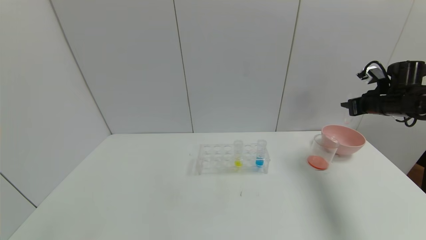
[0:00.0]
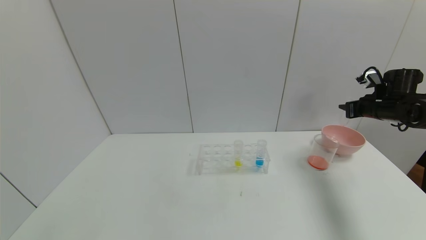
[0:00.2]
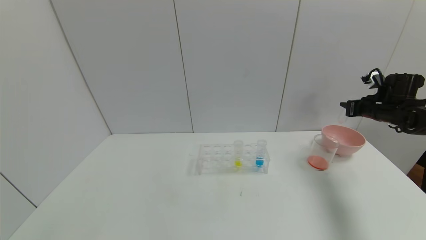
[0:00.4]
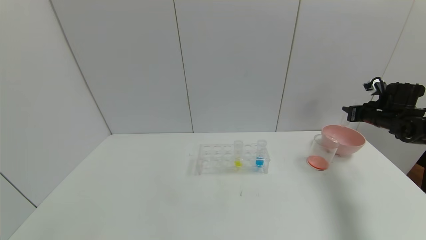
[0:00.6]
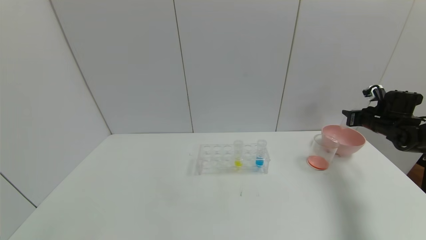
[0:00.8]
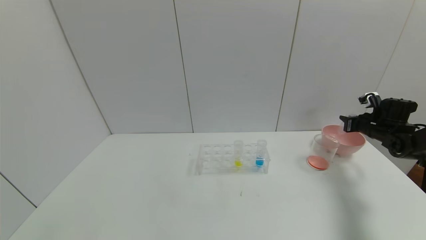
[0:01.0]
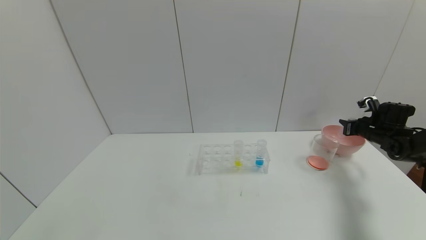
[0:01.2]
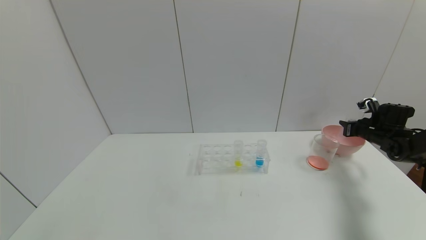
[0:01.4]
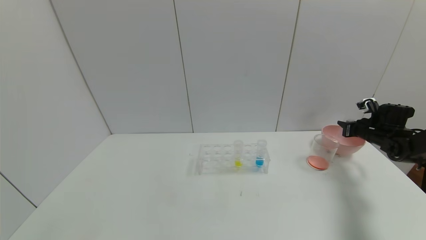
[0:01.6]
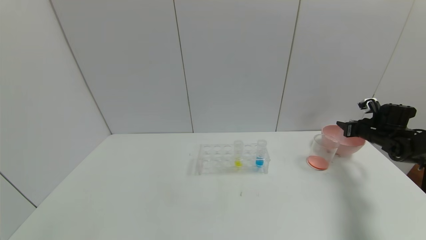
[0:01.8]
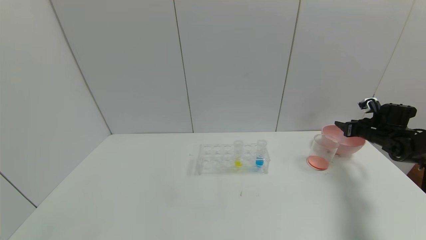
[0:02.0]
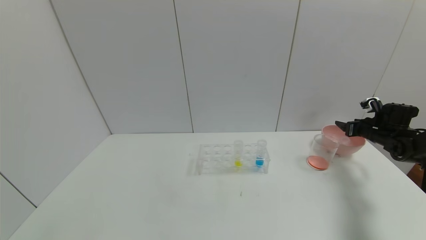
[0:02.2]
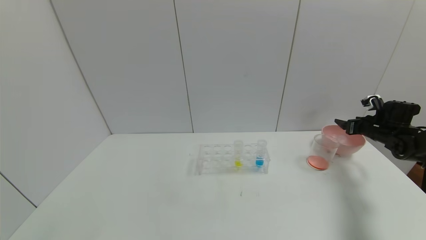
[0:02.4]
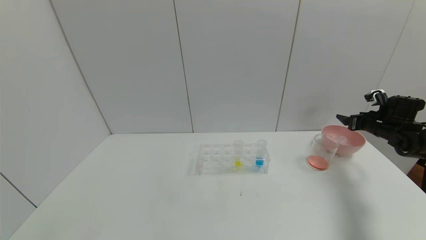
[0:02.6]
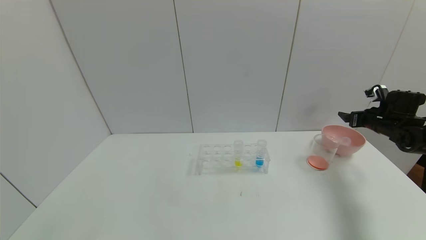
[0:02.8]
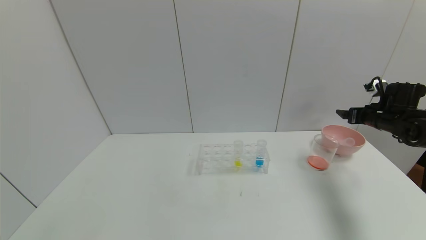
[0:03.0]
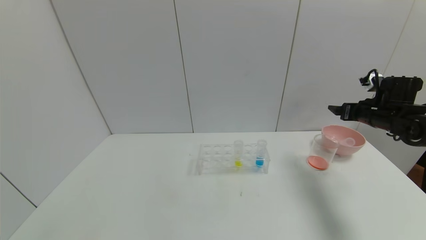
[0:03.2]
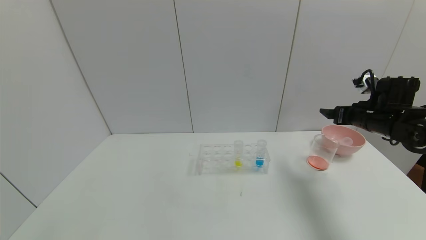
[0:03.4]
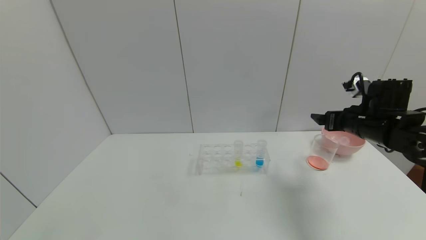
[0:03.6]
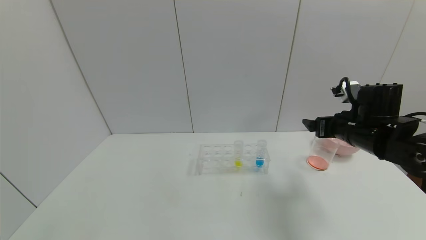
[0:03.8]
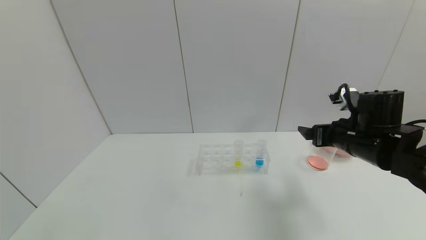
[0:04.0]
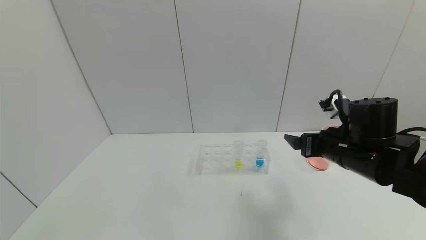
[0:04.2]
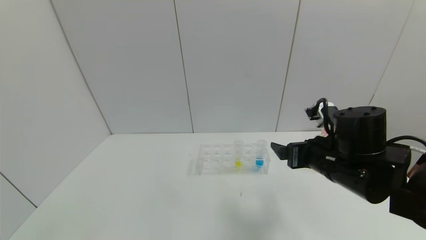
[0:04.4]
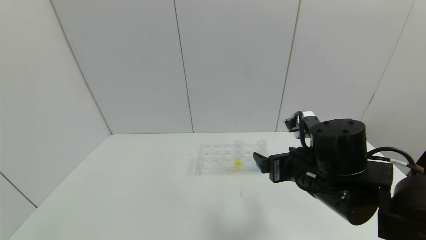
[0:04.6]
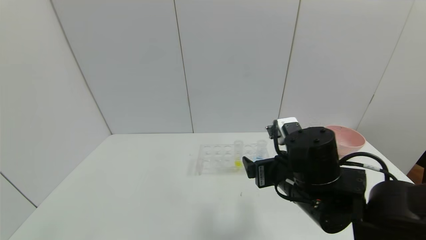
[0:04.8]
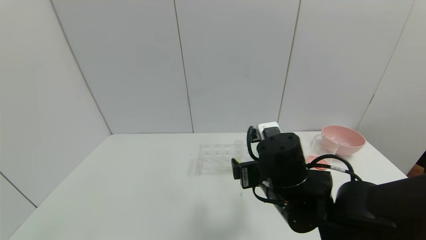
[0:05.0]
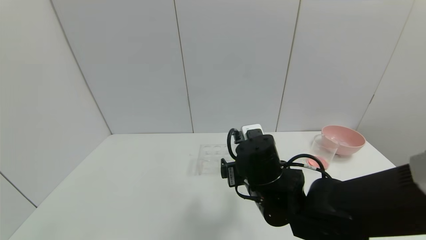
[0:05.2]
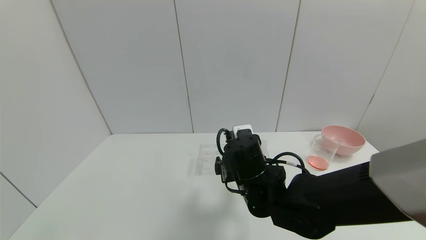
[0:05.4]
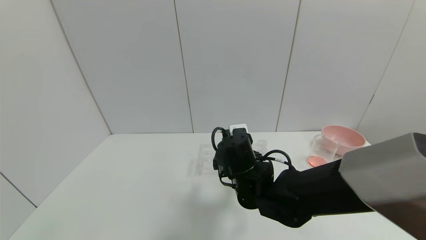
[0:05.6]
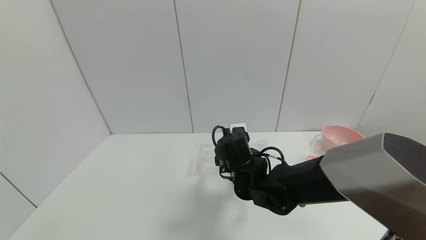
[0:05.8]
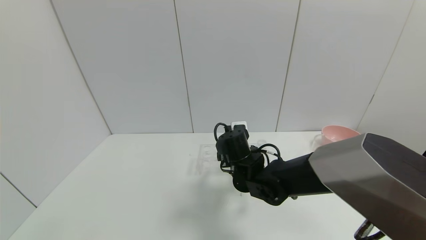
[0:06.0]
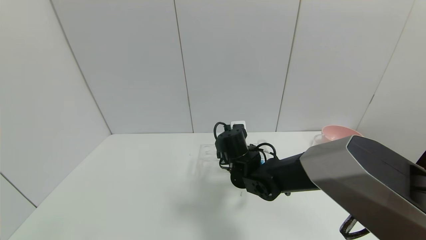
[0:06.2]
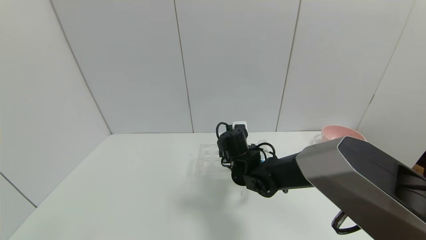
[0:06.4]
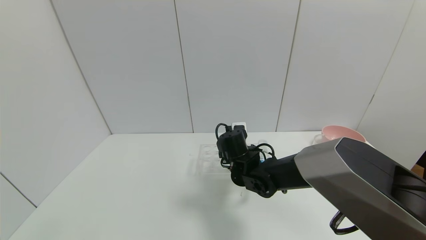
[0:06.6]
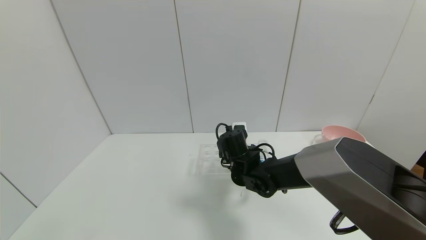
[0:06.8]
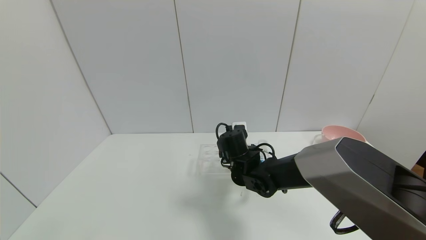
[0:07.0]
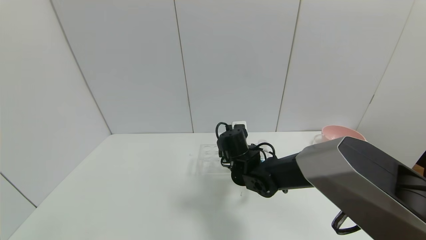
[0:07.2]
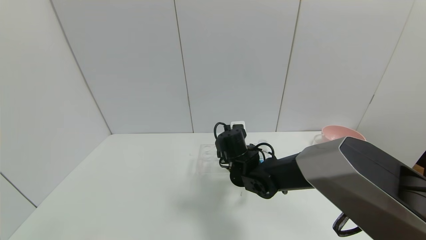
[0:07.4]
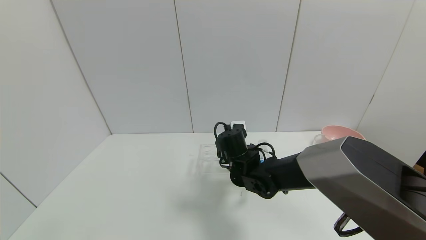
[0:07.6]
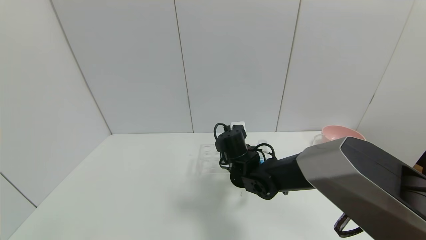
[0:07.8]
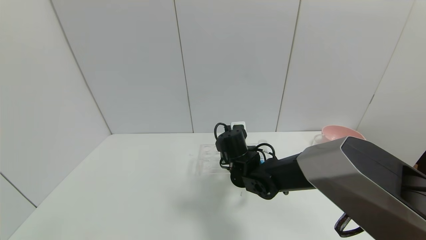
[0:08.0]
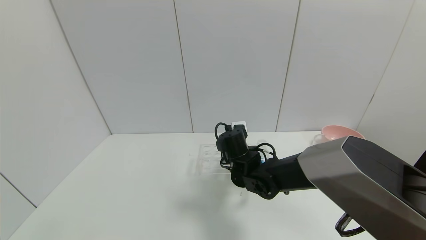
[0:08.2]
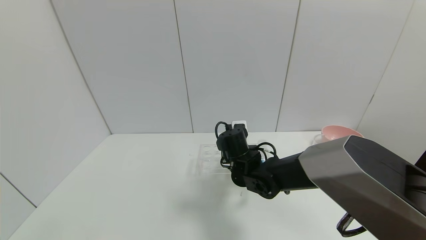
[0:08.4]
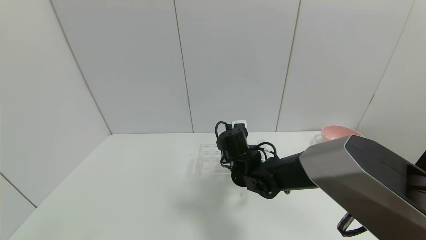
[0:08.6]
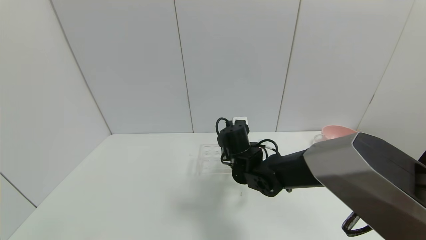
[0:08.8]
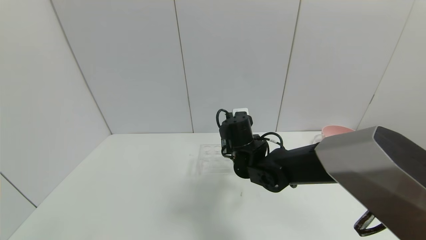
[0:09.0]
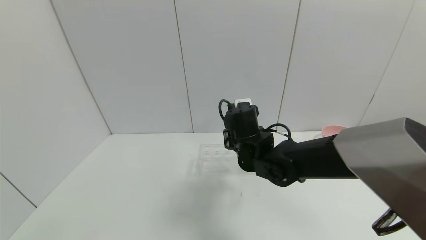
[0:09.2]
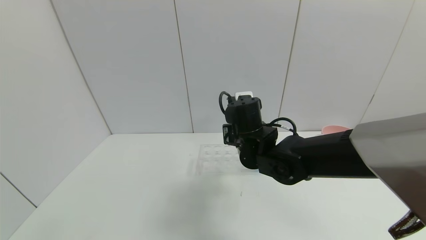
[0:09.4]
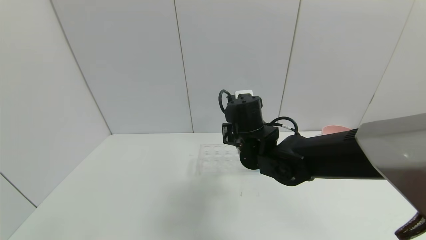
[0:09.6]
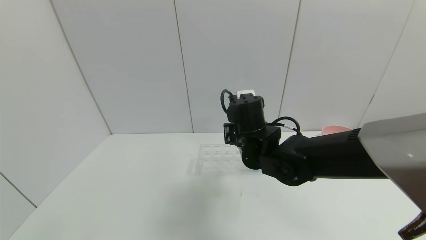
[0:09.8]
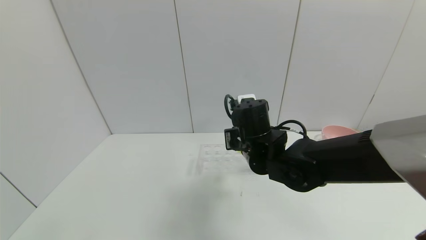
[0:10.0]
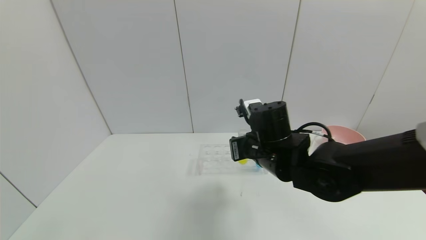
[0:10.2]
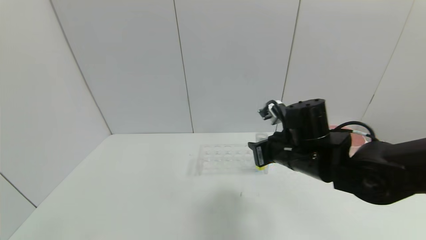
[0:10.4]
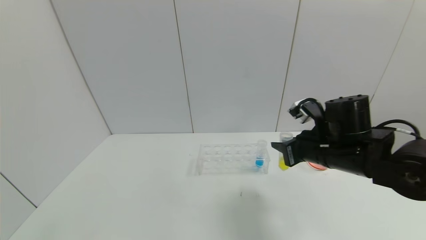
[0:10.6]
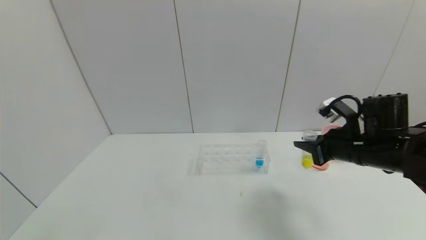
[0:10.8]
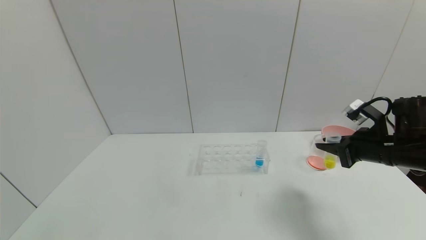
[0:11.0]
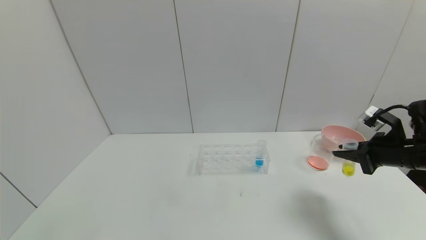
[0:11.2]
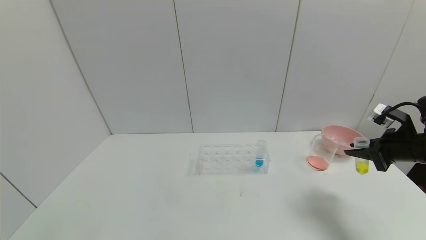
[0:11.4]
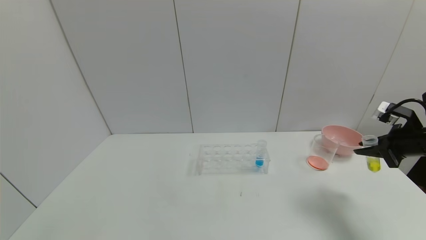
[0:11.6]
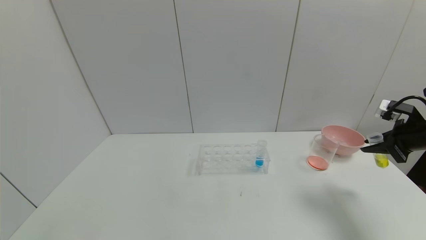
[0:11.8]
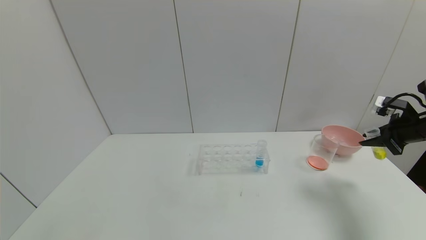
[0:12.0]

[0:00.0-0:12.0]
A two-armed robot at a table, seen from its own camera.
Task of the whole recording: pick up the test tube with yellow pigment and the test tube with red pigment by grippers and pour them into the beaker.
Step, 0:00.0 to 0:02.6: Place the test tube into the bowl with the right gripper.
Step, 0:02.8 to 0:08.8: Grasp the yellow reagent with the right gripper.
0:00.0 to 0:01.6: The right gripper travels downward by some 10 cm.
0:01.6 to 0:03.0: The right gripper is displaced upward by about 5 cm, and opens up.
0:03.0 to 0:04.4: The right gripper goes about 30 cm to the left and backward.
0:04.4 to 0:06.0: The right gripper is displaced to the left, forward and downward by about 20 cm.
0:06.0 to 0:07.6: The grippers make only small movements.
0:07.6 to 0:09.0: The right gripper closes up.
0:09.0 to 0:10.4: The right gripper moves to the right, backward and upward, about 15 cm.
0:10.4 to 0:12.0: The right gripper is displaced to the right by roughly 30 cm.

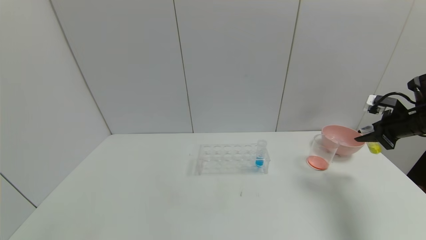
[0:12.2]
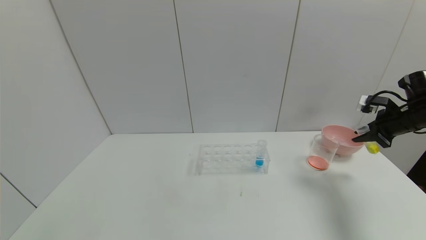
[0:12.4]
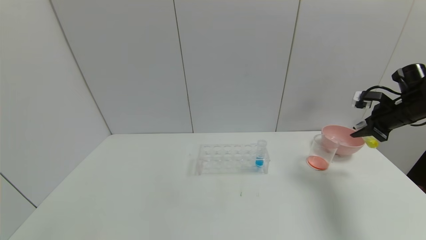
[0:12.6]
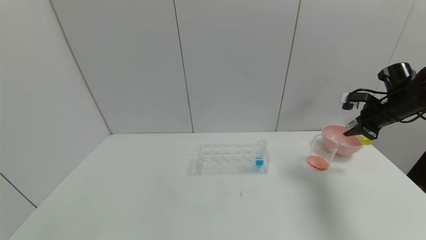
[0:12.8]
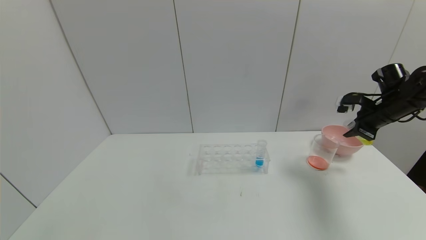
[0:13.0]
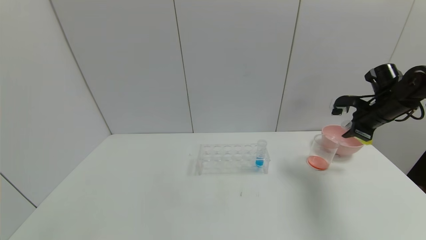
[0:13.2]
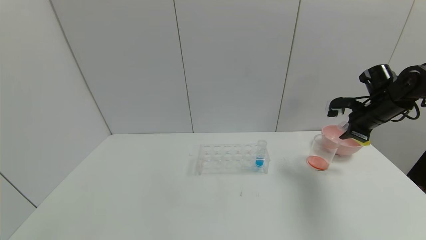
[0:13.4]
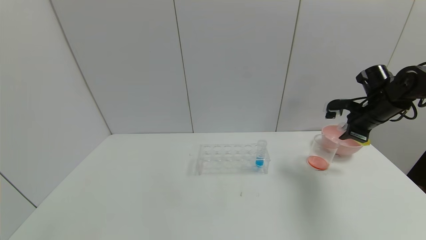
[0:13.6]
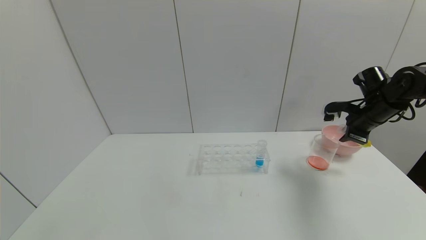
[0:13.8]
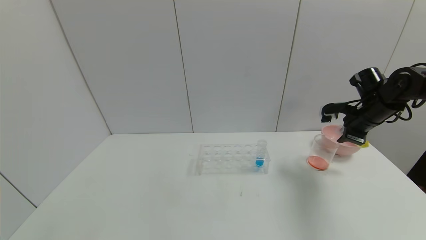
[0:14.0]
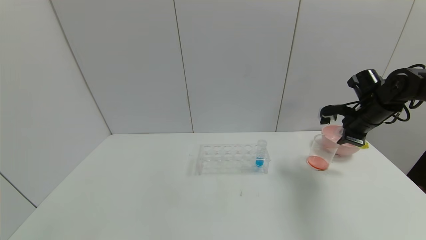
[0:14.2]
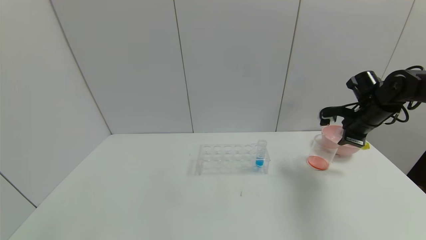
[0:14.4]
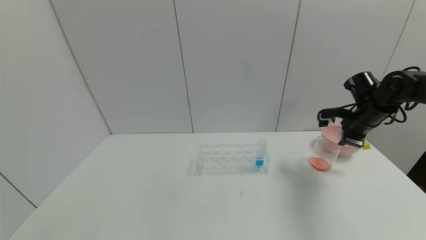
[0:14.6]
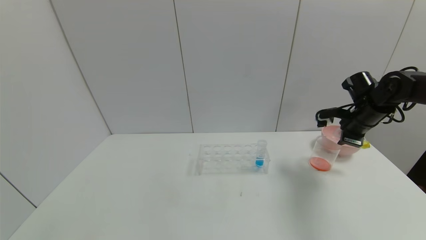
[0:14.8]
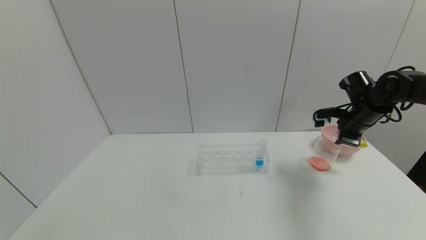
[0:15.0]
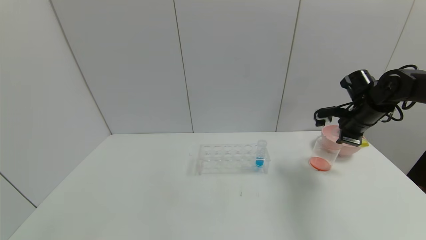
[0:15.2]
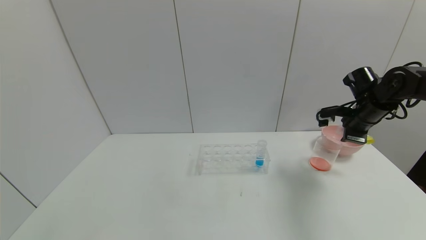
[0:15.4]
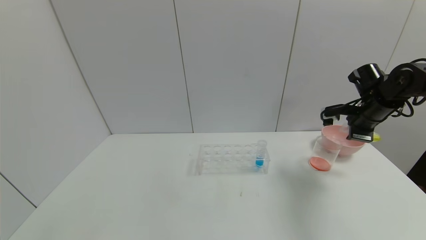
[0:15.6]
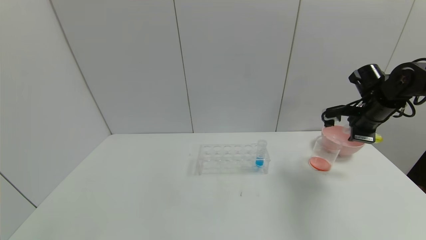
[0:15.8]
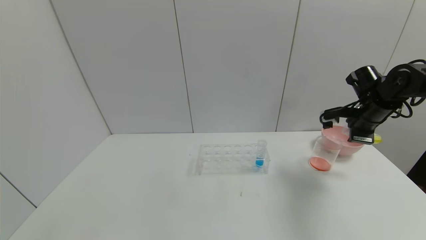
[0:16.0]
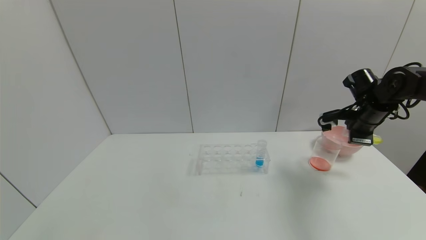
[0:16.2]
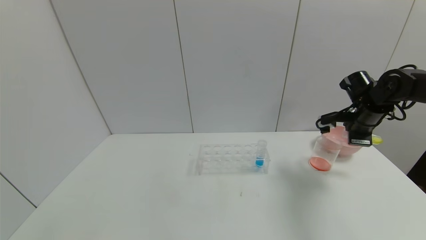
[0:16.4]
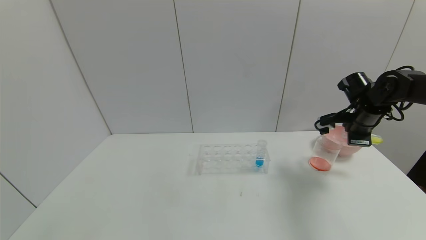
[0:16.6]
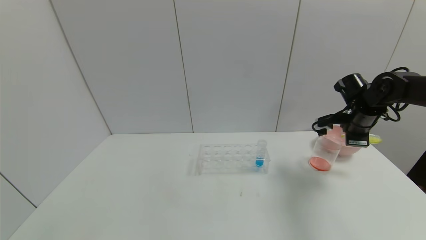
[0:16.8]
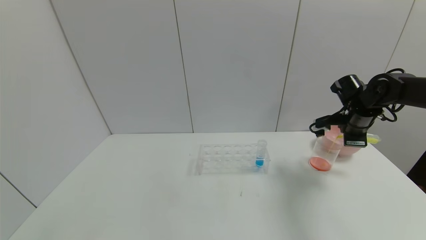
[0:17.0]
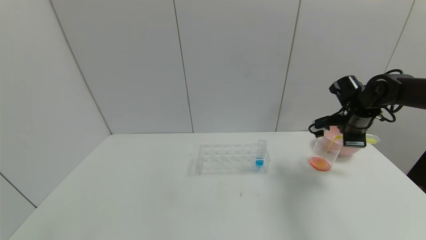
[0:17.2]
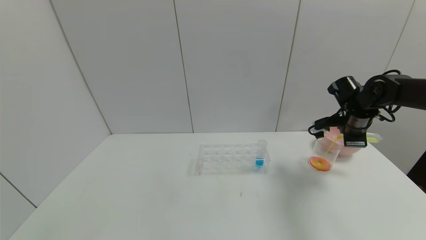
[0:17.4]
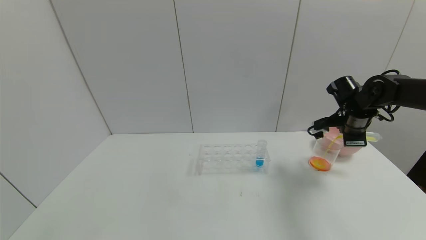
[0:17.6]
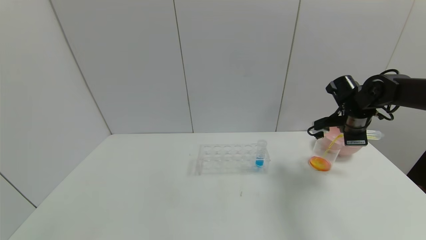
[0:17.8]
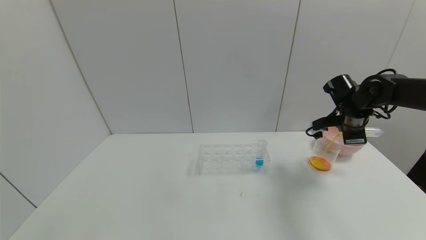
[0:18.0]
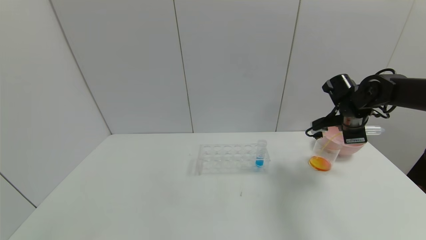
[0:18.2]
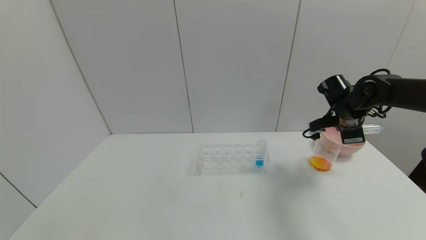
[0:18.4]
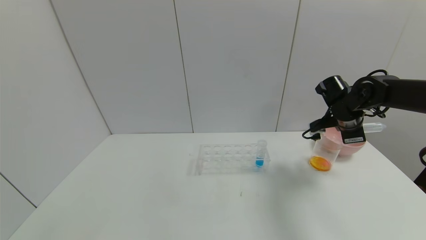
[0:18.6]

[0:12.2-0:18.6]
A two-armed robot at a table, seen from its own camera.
Task of the whole recording: pick up the test tube with yellow pigment and the test tube with red pigment by grippers and pour them into the beaker.
0:12.2 to 0:13.8: The right gripper shifts about 10 cm to the left.
0:13.8 to 0:15.4: The grippers make only small movements.
0:15.4 to 0:17.0: There are only small adjustments of the grippers.
0:17.0 to 0:18.6: The grippers move only a little.
